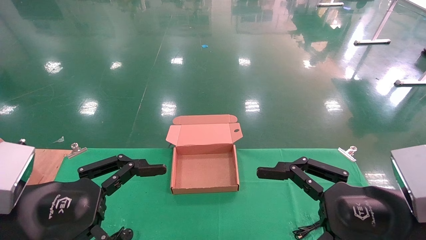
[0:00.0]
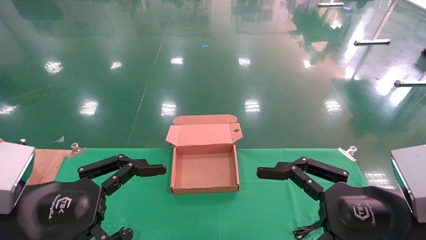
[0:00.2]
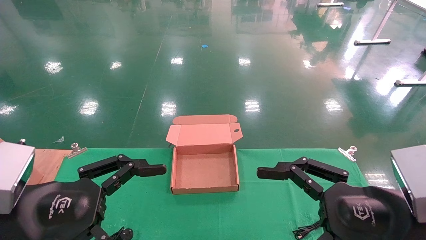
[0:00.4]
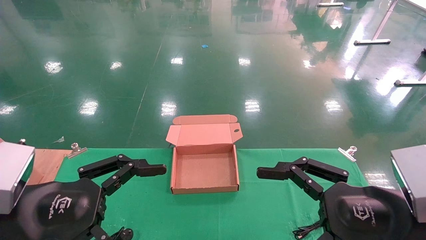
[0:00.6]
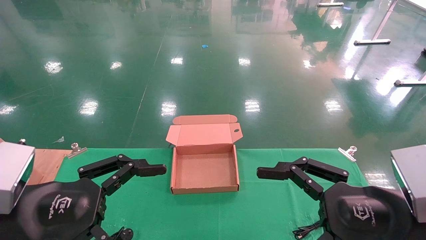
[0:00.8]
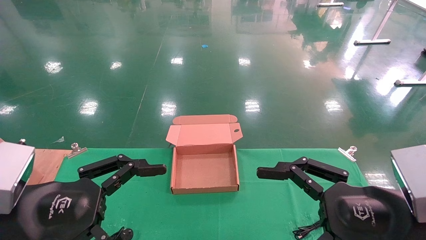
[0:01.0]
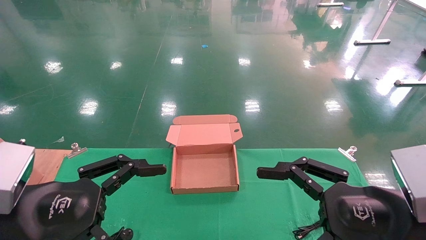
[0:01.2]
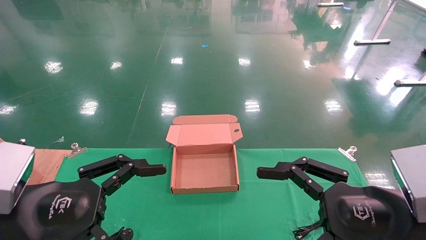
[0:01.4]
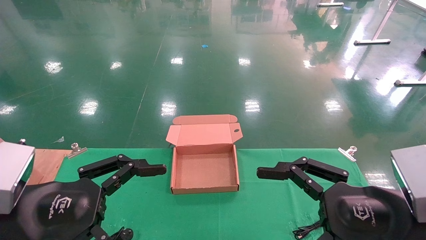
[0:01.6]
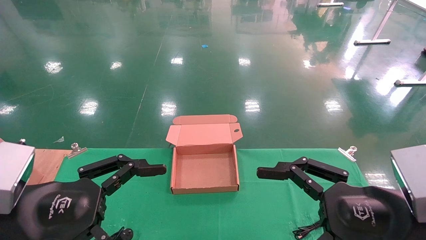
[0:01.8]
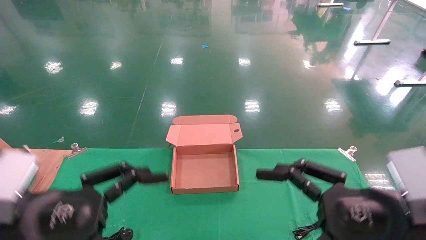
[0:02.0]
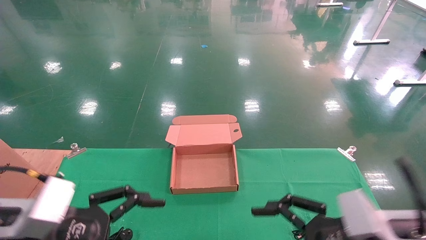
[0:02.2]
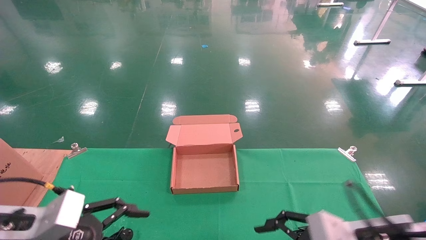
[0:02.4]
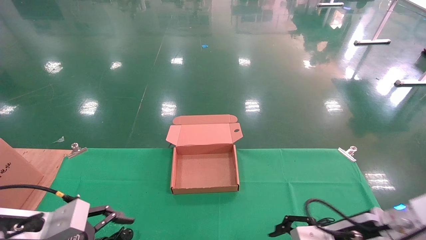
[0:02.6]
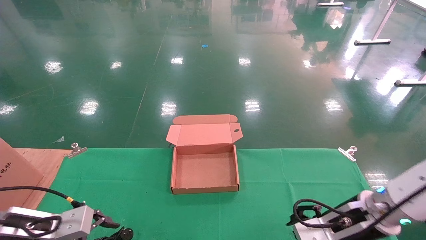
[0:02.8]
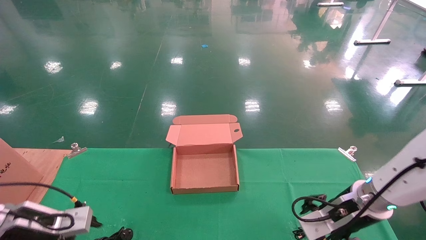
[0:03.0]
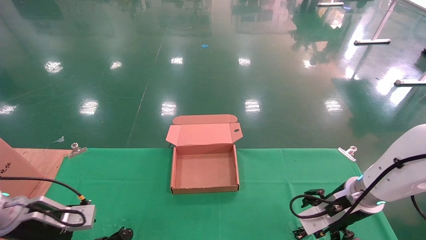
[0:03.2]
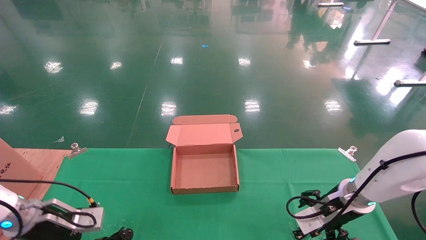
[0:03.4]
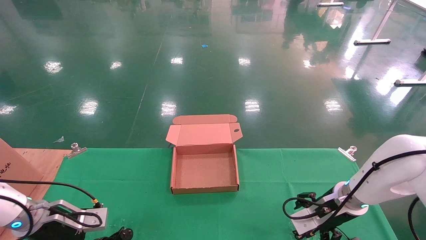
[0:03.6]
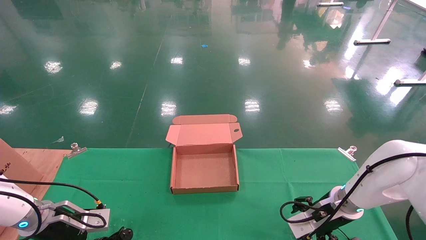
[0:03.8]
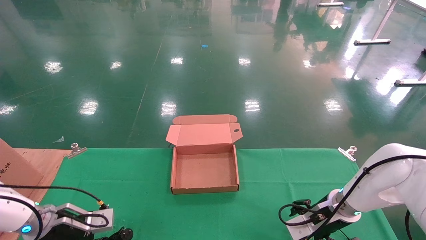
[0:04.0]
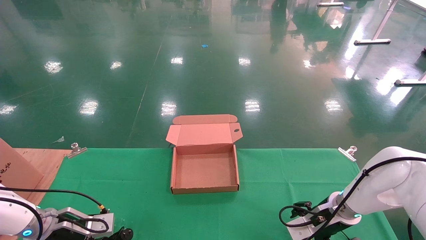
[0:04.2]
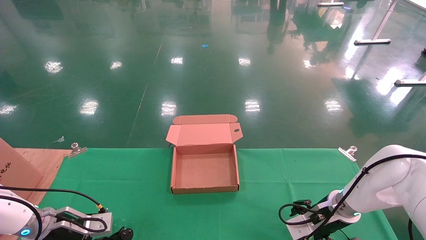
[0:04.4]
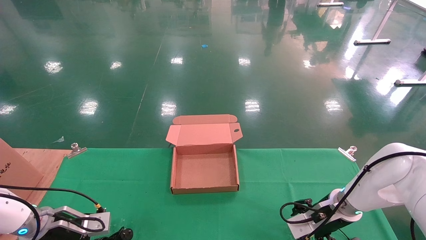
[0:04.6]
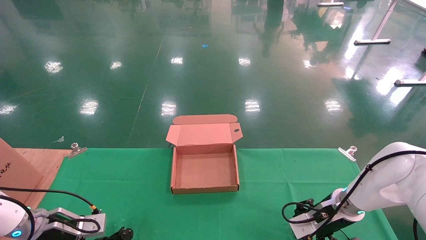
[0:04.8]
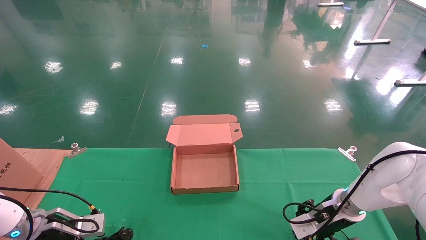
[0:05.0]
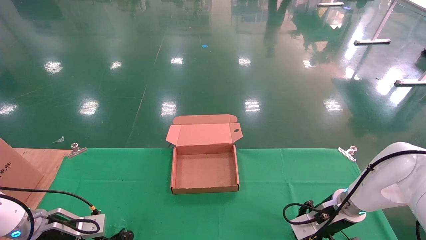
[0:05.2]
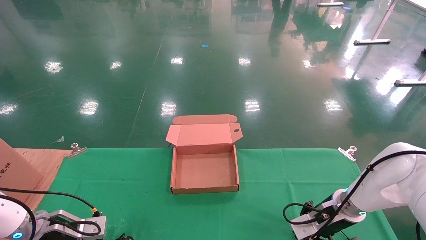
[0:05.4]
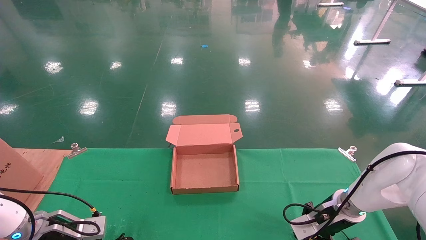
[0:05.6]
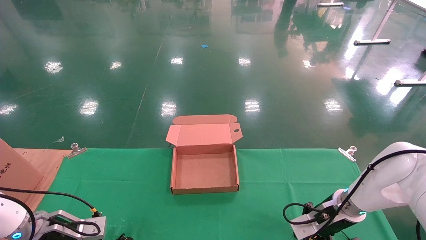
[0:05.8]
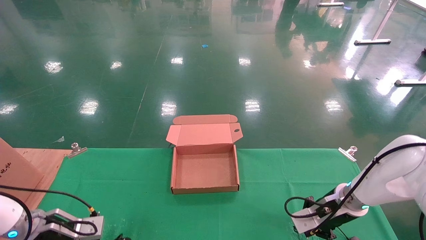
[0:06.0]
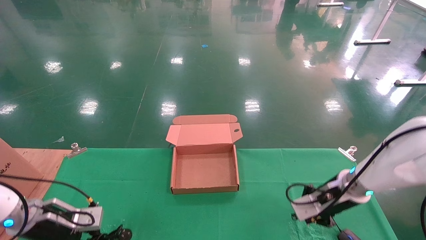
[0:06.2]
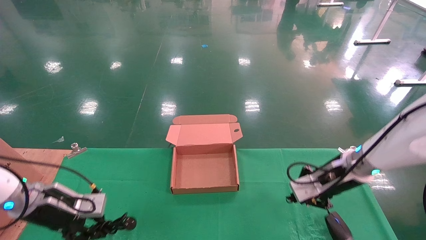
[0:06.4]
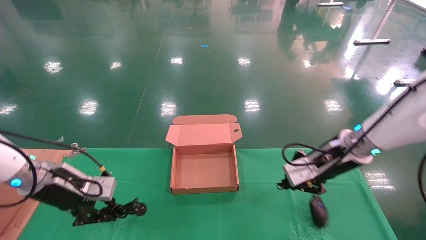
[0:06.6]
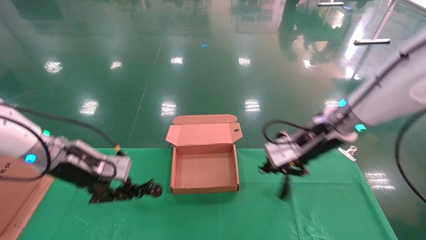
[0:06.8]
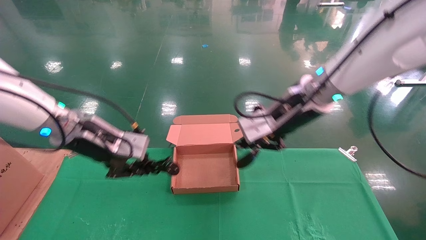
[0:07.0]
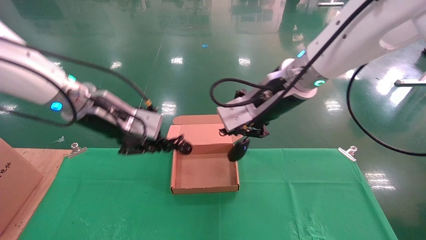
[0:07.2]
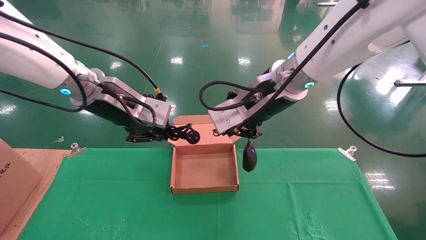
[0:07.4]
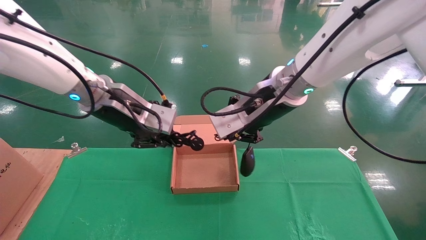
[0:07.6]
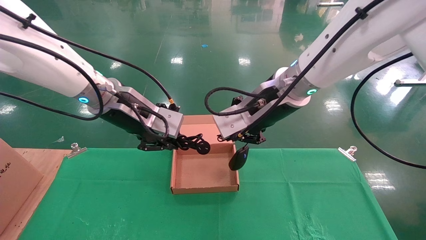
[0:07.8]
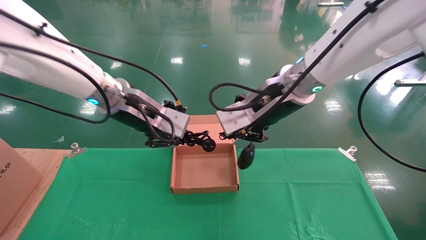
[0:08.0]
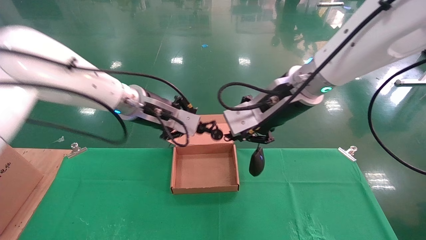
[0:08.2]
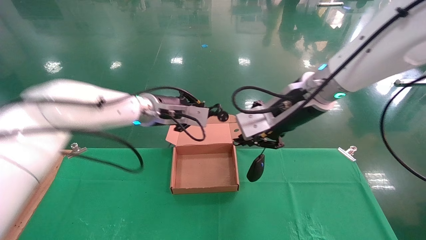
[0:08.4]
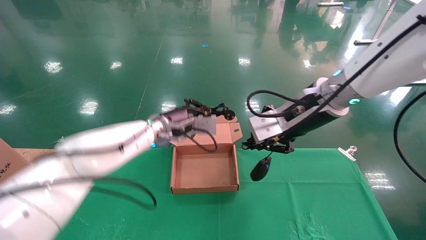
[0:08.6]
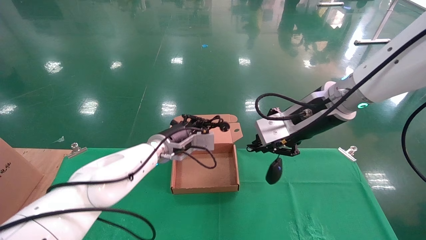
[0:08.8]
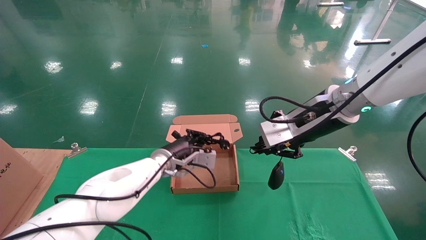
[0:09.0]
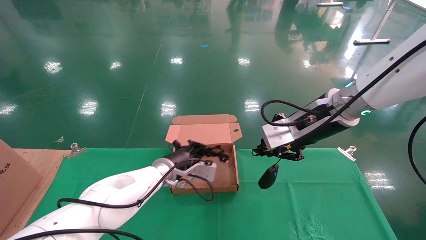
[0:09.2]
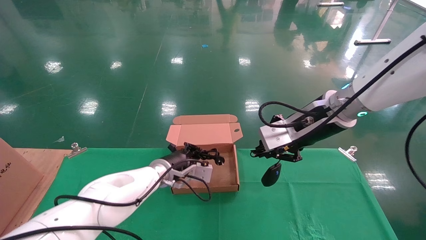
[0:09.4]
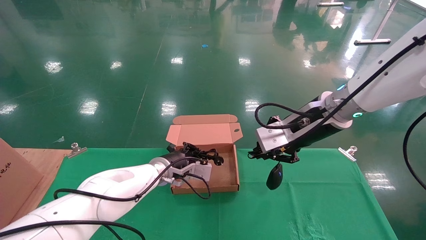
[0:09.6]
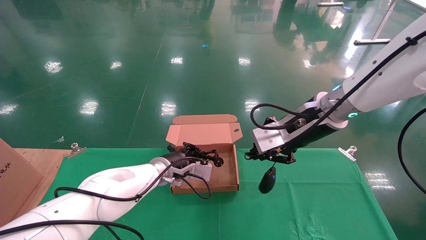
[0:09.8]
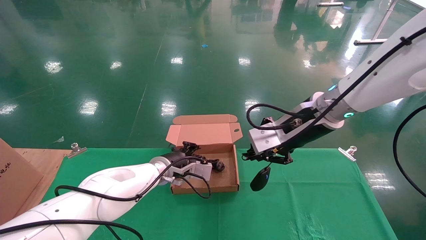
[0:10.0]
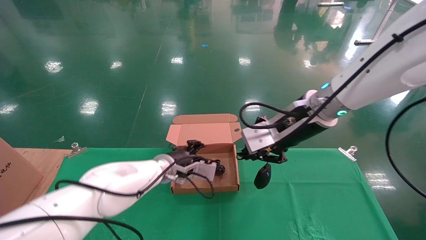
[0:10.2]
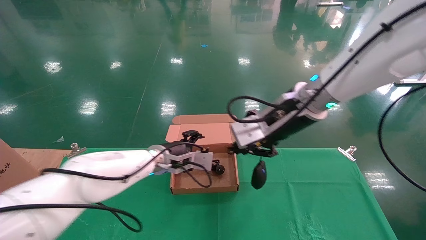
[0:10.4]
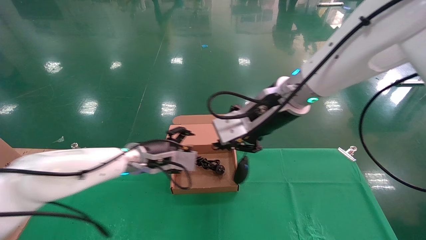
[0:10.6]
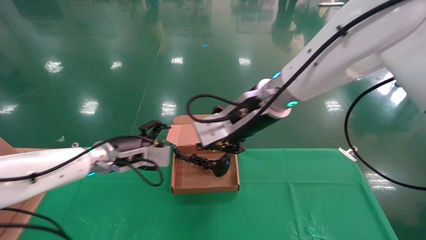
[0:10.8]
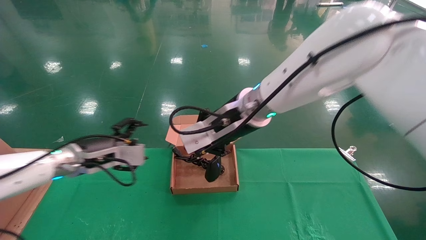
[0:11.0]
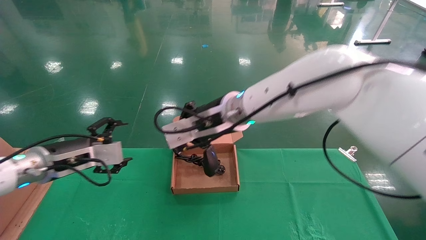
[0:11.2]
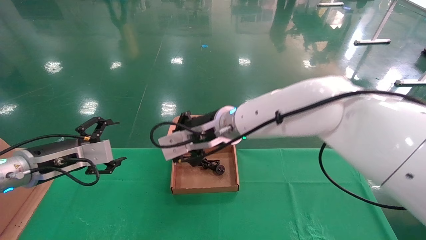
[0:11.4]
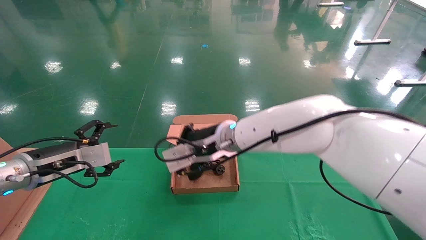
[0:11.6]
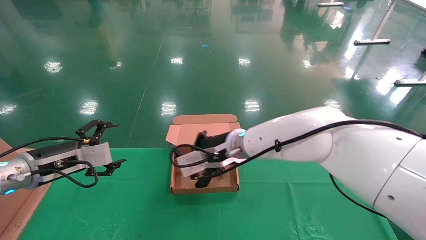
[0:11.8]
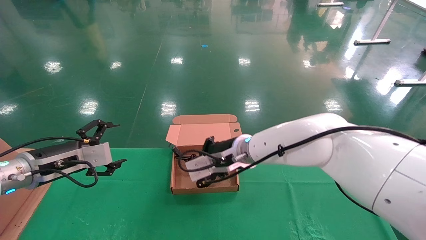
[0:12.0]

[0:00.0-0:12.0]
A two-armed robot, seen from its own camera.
Step, 0:02.4 to 0:06.4: Grab and lift both the mouse and power cord from the accessory packaging area at the same time.
Step, 0:06.6 to 0:11.8: Place the mouse and power cord into the box.
0:00.0 to 0:01.6: Both grippers stay about where they are.
0:01.6 to 0:03.0: The left gripper travels forward, downward and to the left by approximately 20 cm, while the right gripper is displaced forward and downward by roughly 20 cm.
0:03.0 to 0:04.4: The two grippers go approximately 10 cm forward and downward.
0:04.4 to 0:06.0: The right gripper closes up; the left gripper closes its fingers.
0:06.0 to 0:07.6: The left gripper travels upward and to the right by some 35 cm. The right gripper moves upward and to the left, roughly 30 cm.
0:07.6 to 0:09.0: The left gripper moves downward and forward, approximately 20 cm; the right gripper shifts approximately 10 cm to the right.
0:09.0 to 0:10.4: The right gripper moves to the left, about 5 cm; the left gripper opens up.
0:10.4 to 0:12.0: The right gripper moves downward, to the left and forward, roughly 15 cm. The left gripper is displaced to the left and backward by about 25 cm, and opens its fingers.

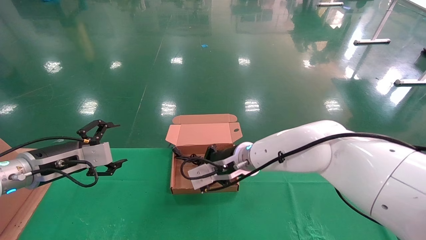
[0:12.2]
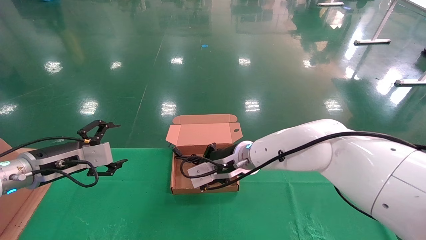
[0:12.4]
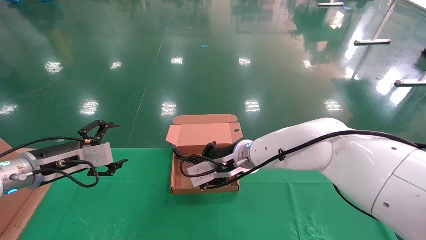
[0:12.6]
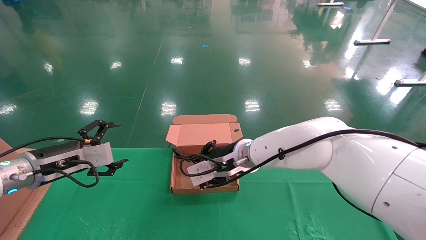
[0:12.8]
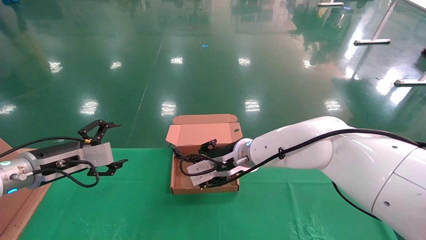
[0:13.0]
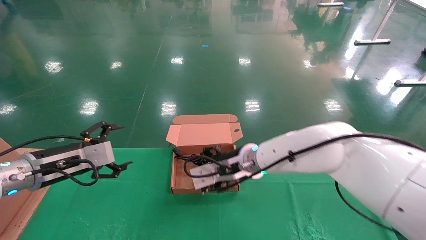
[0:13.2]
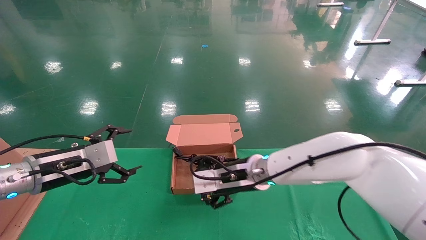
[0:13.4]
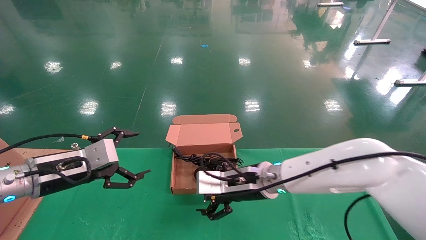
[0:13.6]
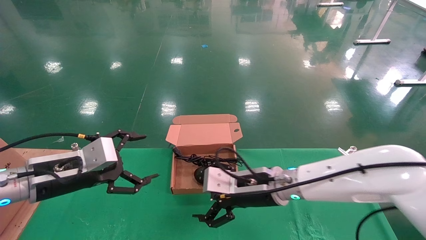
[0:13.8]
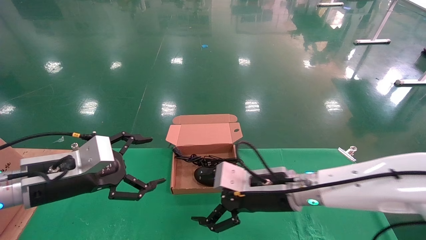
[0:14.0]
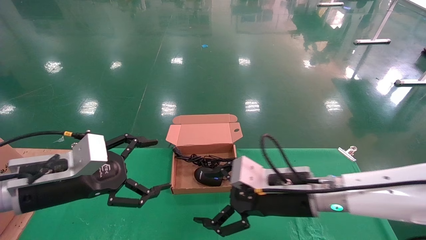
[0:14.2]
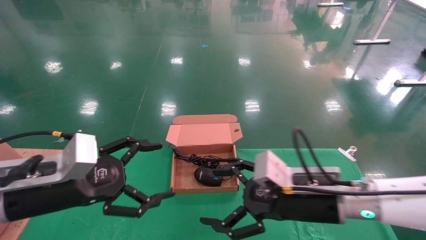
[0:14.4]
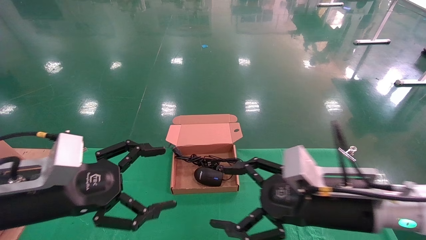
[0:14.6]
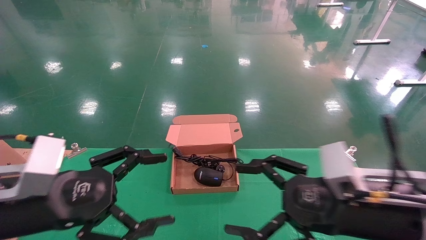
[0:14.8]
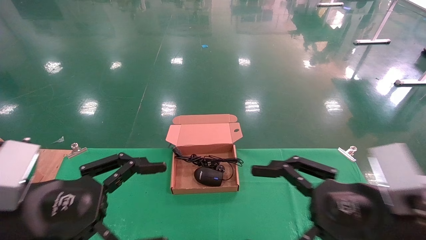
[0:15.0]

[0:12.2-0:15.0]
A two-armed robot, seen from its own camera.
0:12.2 to 0:13.6: The right gripper ends up some 5 cm from where it was, and opens up; the left gripper moves roughly 5 cm.
0:13.6 to 0:15.0: The left gripper moves backward, roughly 15 cm. The right gripper is displaced backward and to the right by about 25 cm.

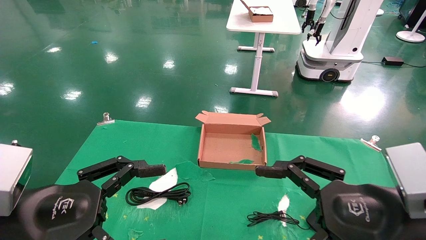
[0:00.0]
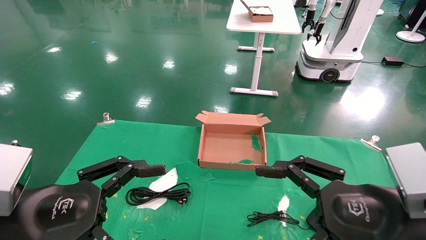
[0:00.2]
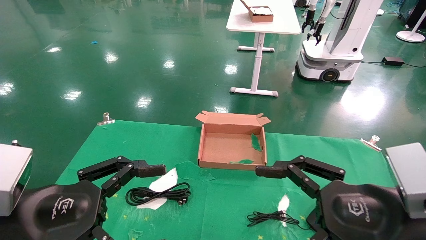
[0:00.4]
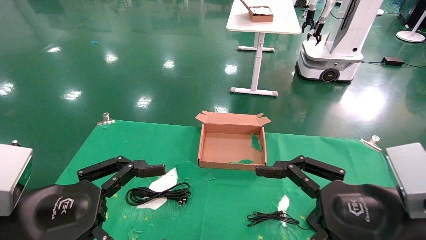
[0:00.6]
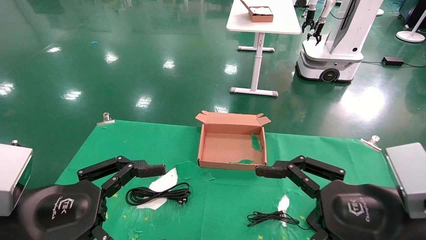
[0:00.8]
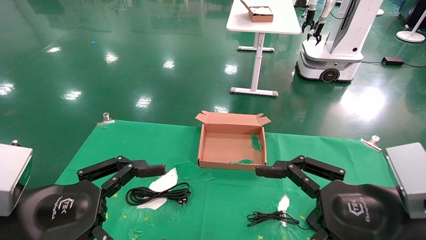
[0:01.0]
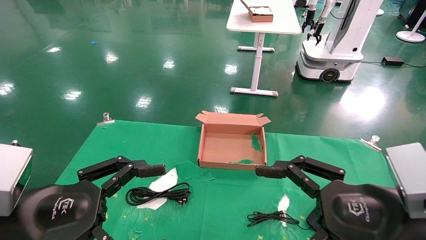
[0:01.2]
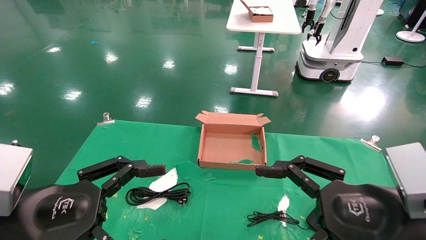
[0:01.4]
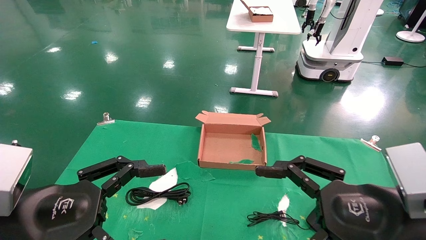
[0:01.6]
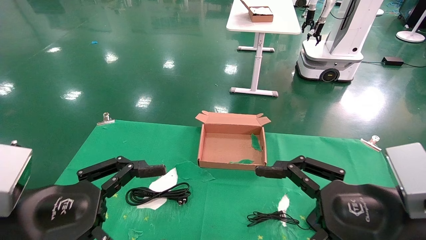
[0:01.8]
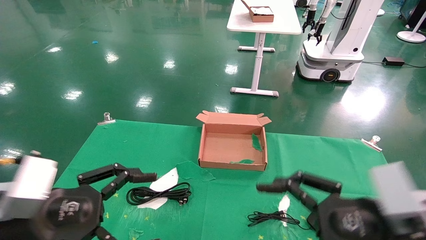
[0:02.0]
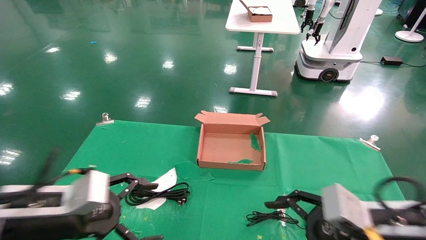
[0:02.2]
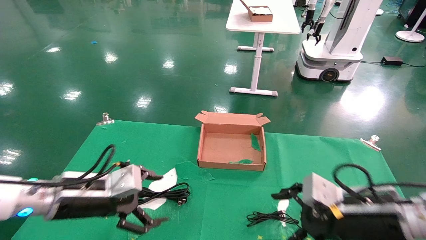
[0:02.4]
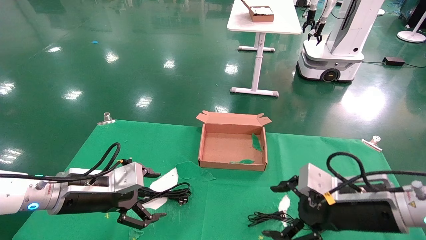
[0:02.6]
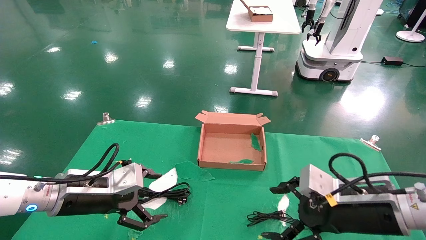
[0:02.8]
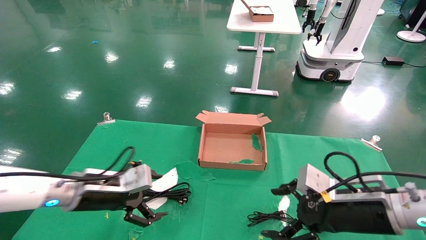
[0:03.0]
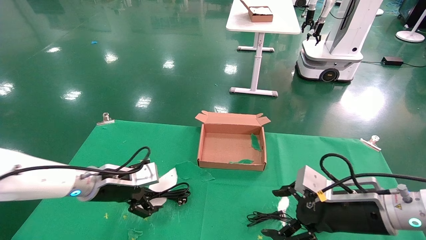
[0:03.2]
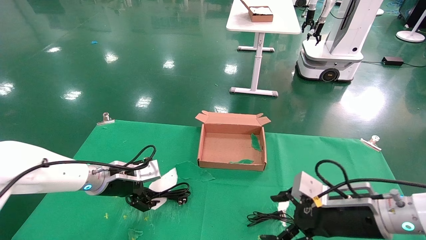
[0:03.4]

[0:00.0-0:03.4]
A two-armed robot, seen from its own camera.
0:00.0 to 0:01.6: Both grippers stay put.
0:01.6 to 0:03.4: The left gripper moves forward, approximately 25 cm, while the right gripper shifts some 15 cm forward and downward.
